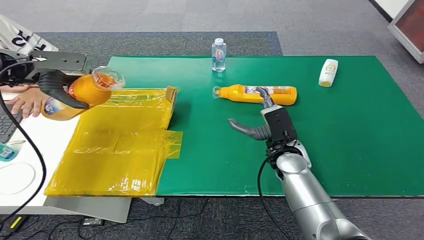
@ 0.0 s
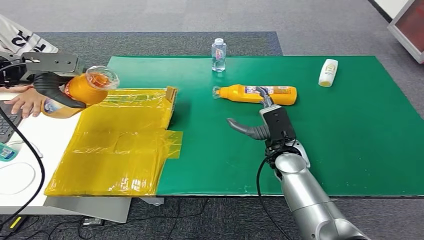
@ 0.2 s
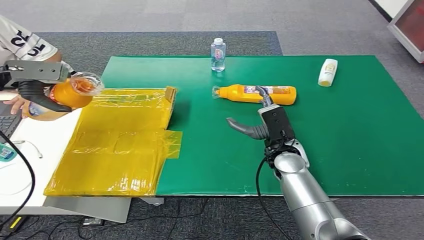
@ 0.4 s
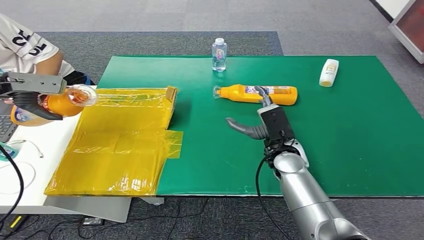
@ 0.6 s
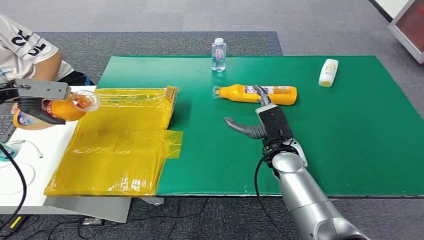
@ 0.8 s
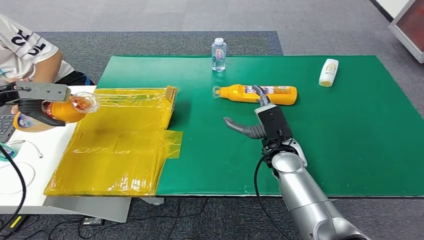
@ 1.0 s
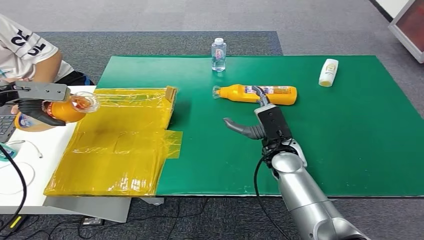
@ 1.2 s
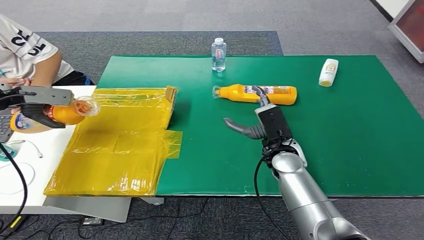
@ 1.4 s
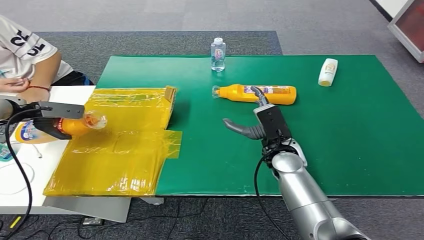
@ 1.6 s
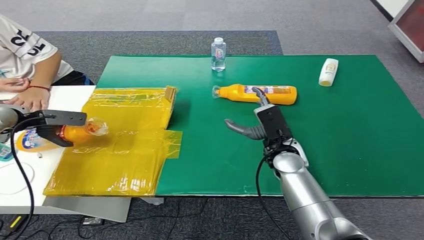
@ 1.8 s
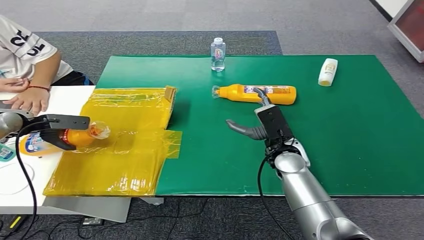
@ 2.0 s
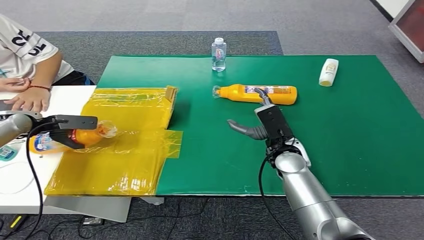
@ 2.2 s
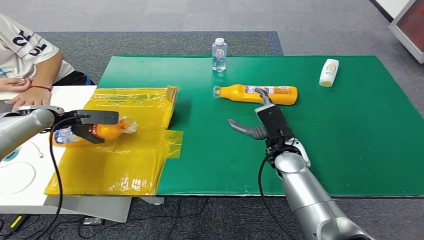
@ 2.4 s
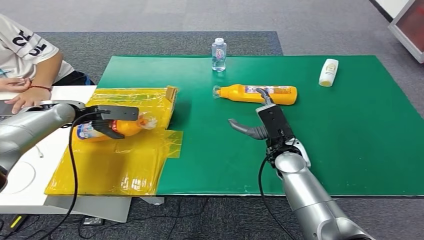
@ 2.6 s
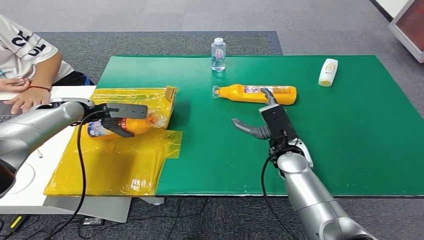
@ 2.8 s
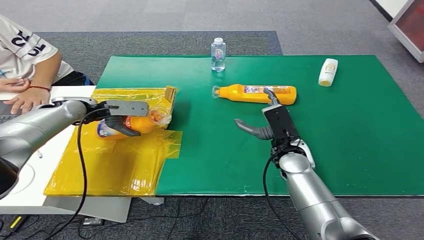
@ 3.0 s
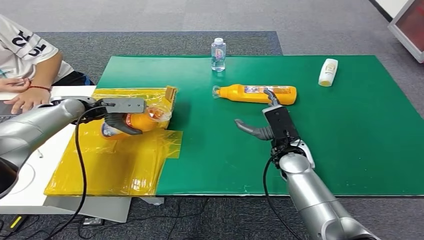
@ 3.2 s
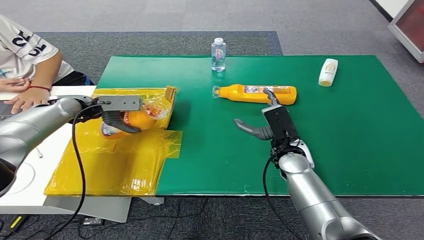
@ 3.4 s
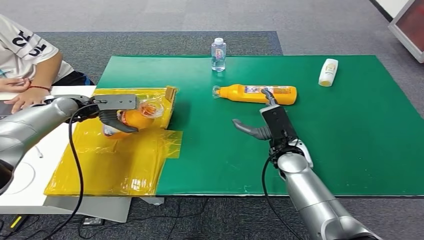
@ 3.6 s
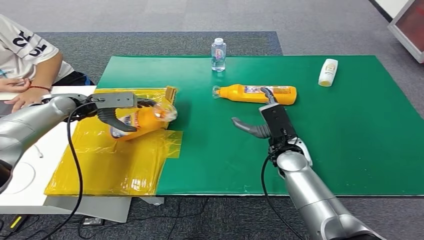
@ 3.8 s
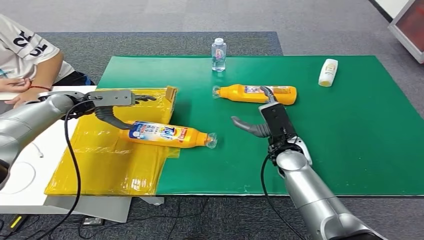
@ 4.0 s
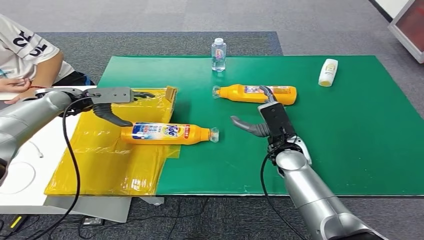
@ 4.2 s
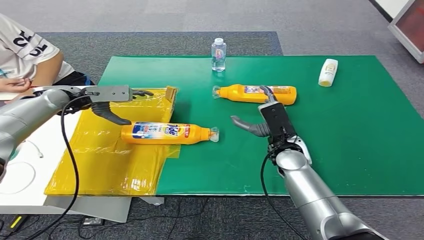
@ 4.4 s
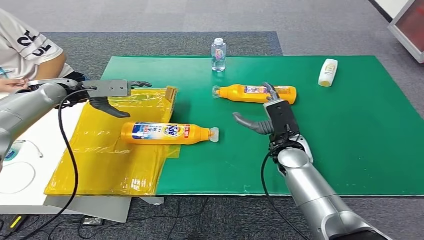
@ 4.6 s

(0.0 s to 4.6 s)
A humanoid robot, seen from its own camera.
Step, 0.0 s - 4.6 s: Turn the bottle to the front side.
0.0 s - 1.6 s: The left hand moves downward and to the left, roughly 15 cm.
1.6 s - 3.0 s: The left hand shifts approximately 15 cm to the right.
3.0 s - 4.6 s: The left hand heads upward, covering roughly 5 cm.

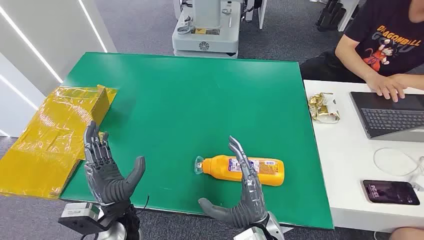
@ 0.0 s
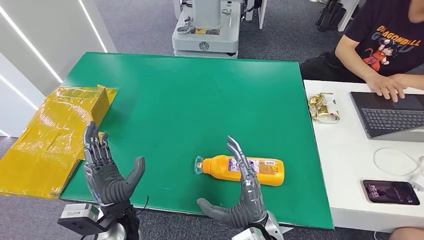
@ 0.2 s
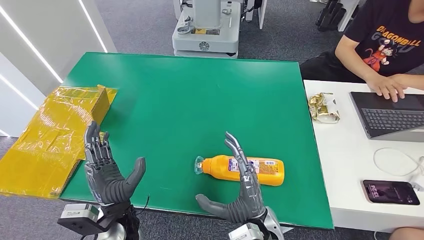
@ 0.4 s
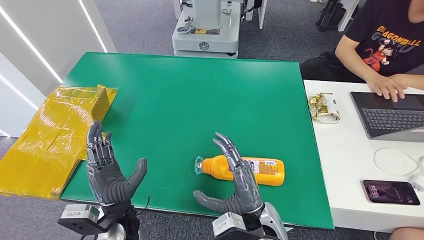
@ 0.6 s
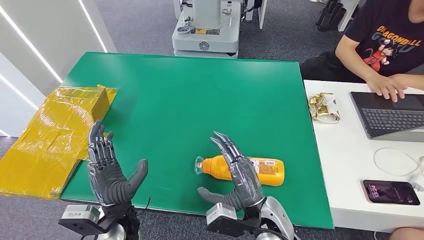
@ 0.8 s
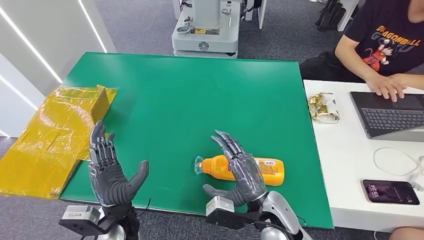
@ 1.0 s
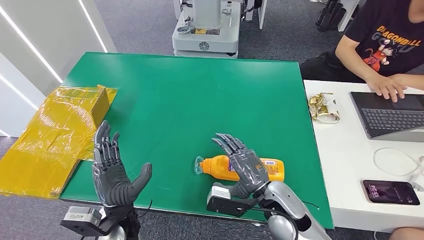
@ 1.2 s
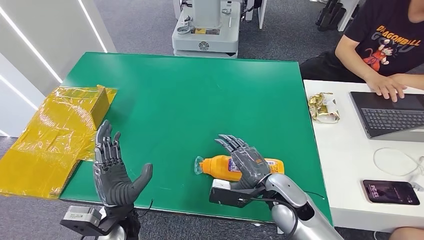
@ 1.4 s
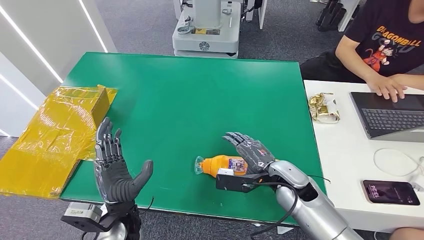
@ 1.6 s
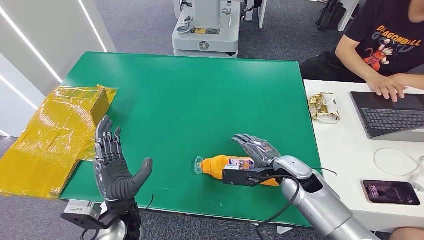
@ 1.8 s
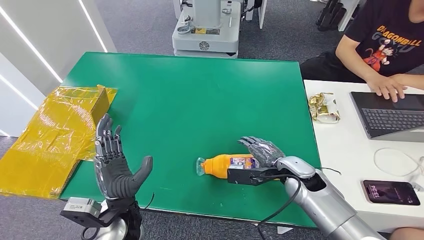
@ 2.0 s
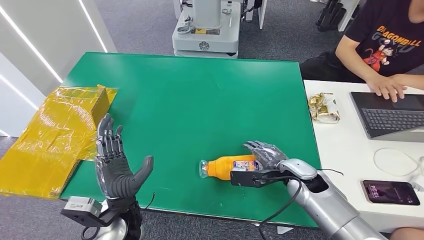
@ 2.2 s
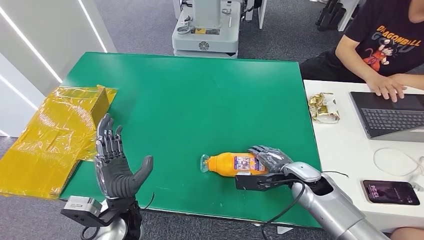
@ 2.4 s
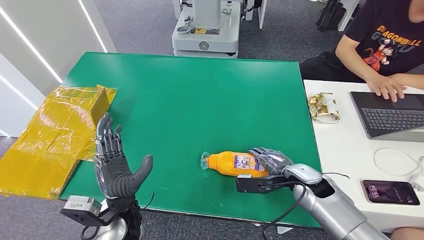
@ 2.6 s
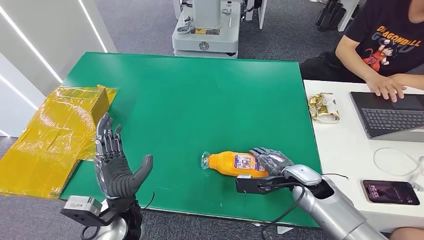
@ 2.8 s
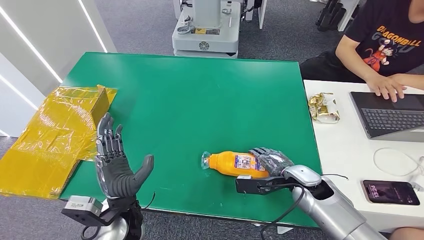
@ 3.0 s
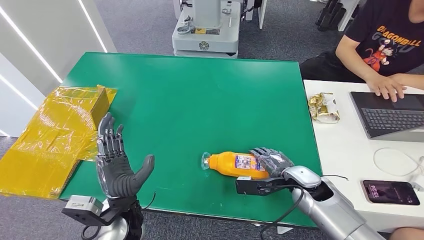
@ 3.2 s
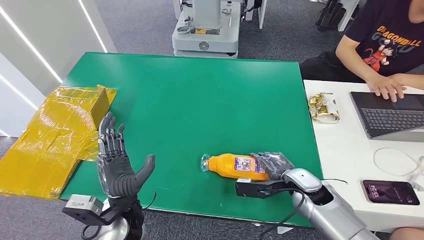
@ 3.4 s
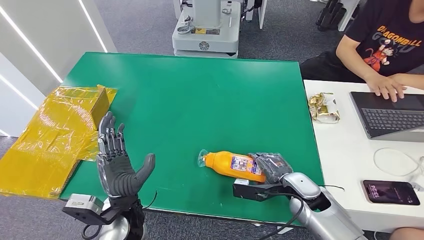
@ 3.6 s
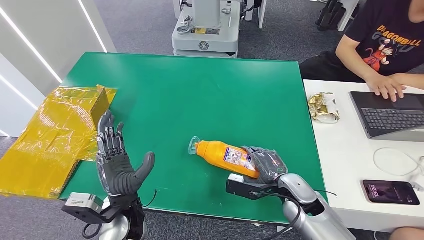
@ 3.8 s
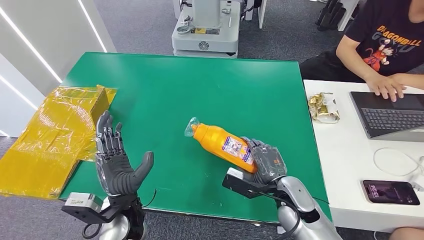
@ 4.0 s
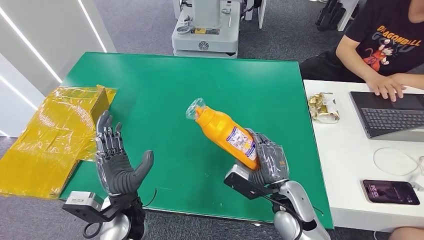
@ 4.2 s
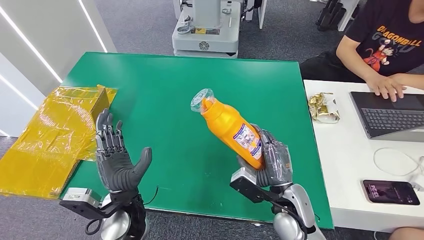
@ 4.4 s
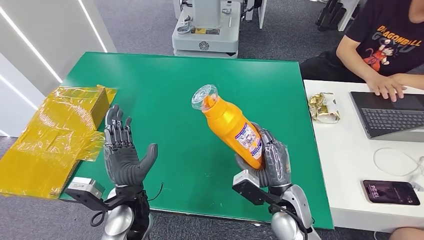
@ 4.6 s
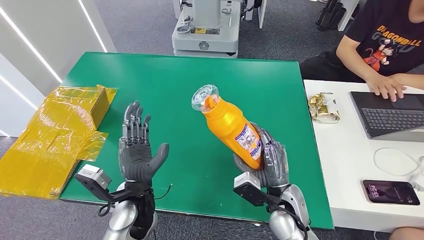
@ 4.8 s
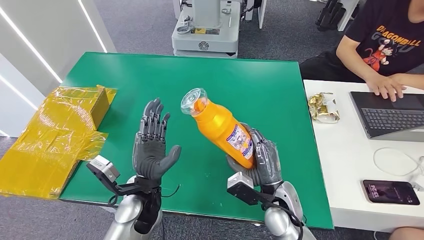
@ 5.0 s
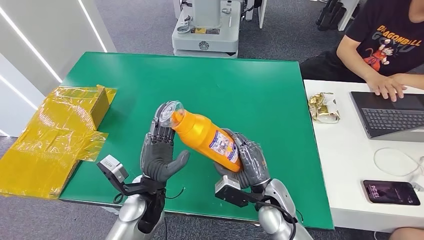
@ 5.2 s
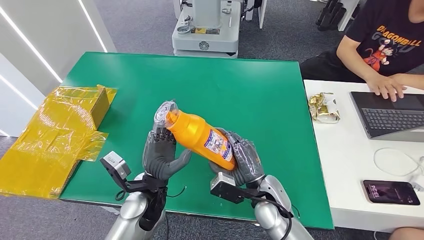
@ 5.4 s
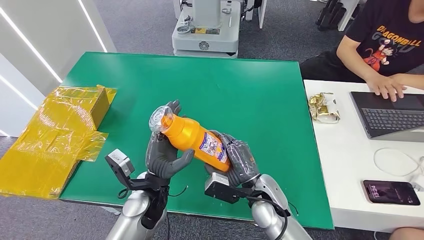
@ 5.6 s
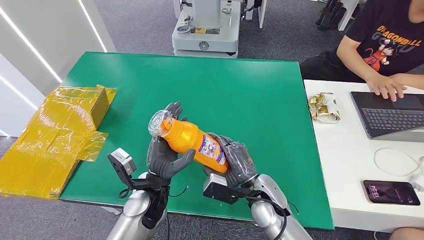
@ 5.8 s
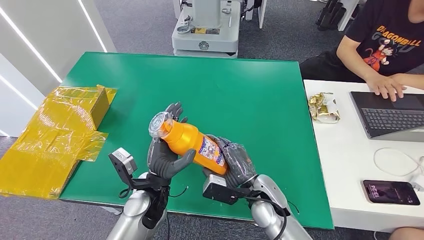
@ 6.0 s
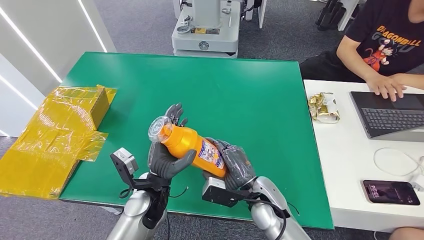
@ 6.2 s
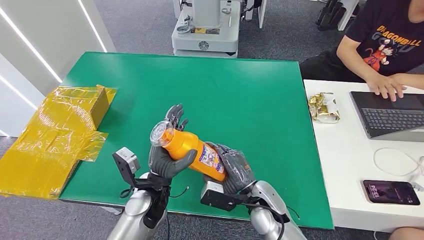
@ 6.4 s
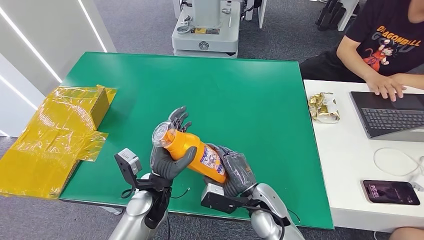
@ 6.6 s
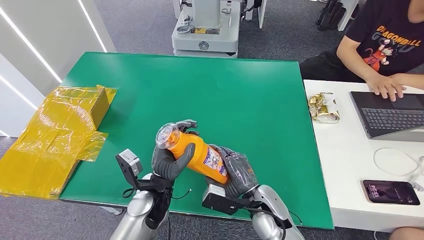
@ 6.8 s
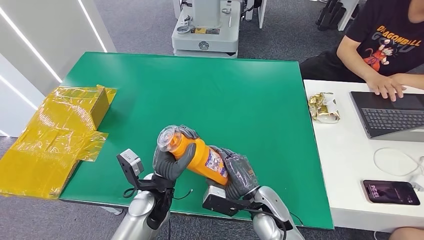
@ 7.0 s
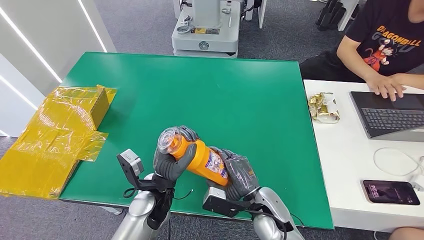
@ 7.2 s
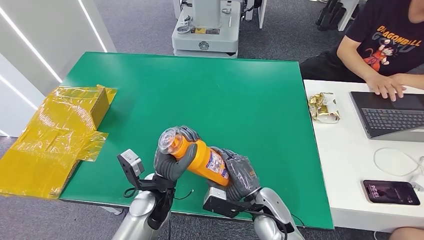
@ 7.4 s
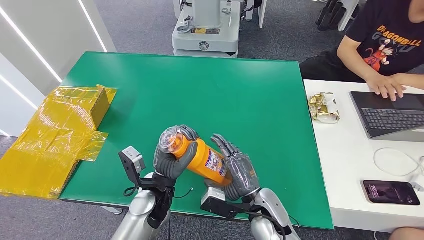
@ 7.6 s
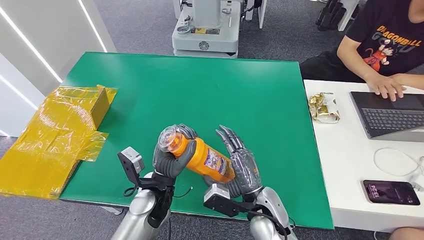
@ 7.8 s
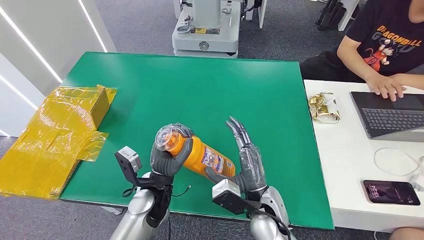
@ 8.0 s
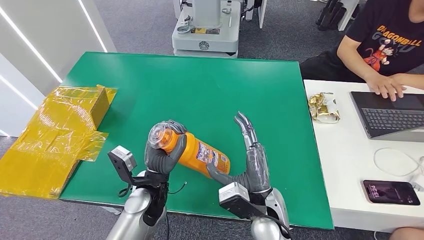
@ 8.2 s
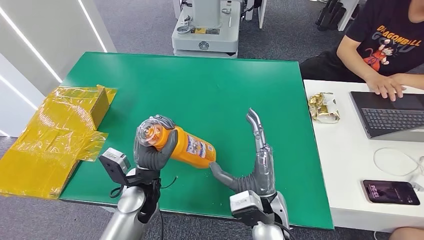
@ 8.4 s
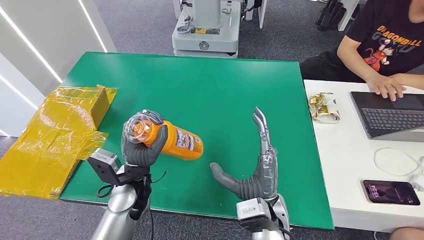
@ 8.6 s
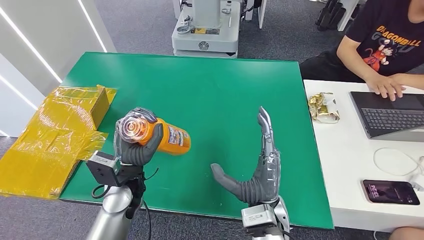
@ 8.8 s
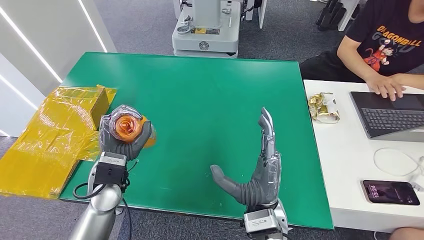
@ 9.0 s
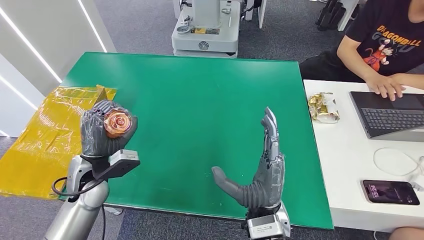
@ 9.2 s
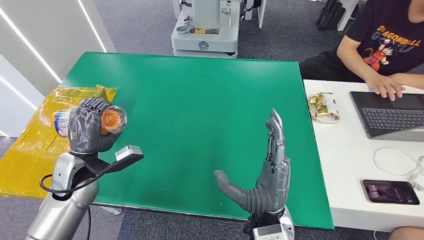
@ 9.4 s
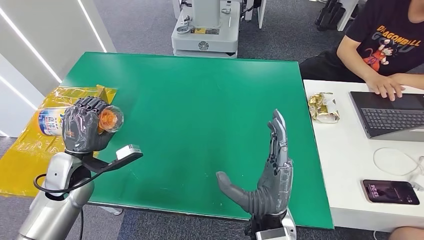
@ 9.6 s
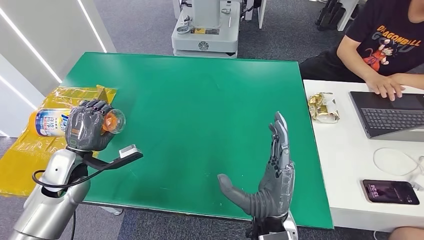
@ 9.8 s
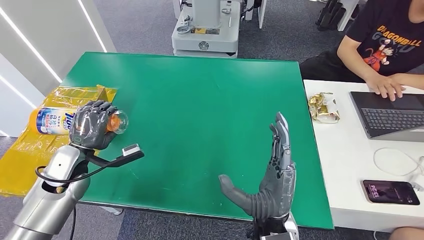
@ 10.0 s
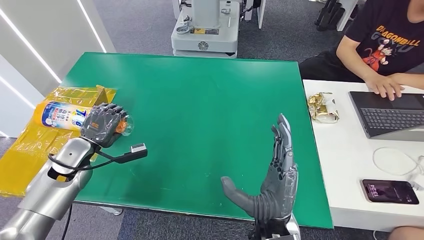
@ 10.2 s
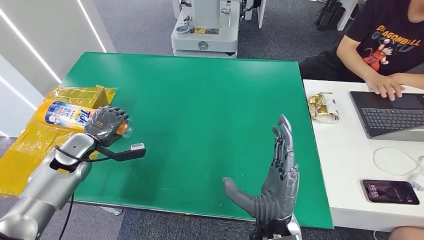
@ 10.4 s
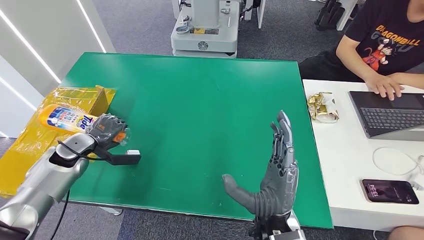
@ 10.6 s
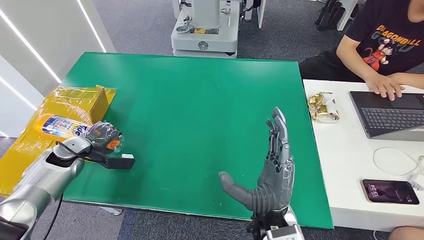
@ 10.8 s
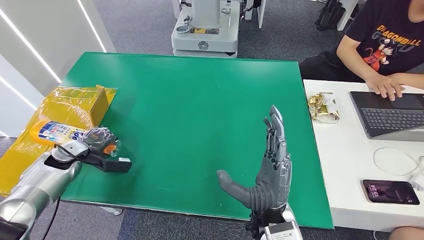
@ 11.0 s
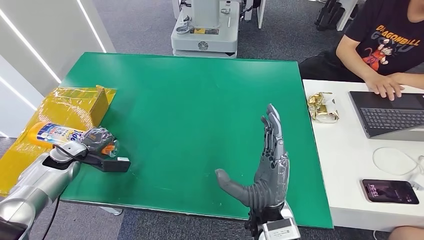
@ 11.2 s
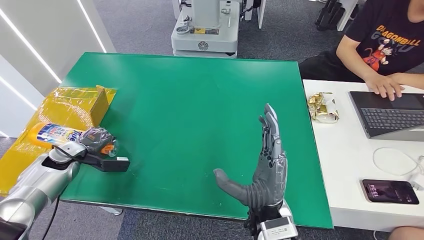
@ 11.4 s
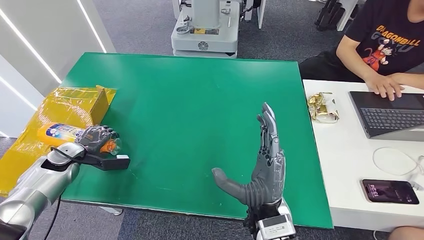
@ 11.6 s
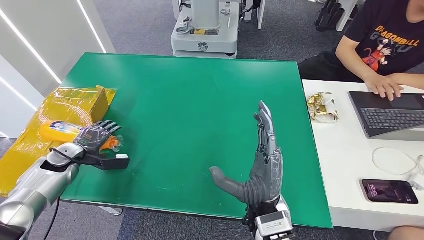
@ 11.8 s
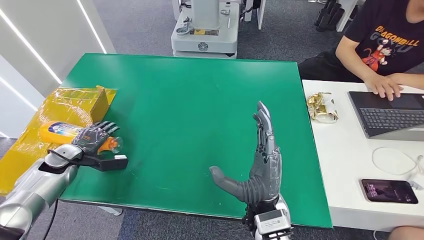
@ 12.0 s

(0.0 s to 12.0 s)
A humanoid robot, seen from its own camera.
Step, 0.0 s - 4.4 s: Pick up the bottle from the table.
1.6 s - 3.0 s: The right hand heads to the right, covering approximately 5 cm.
3.0 s - 4.4 s: The right hand travels backward and to the left by some 10 cm.
4.4 s - 6.0 s: The right hand goes approximately 5 cm to the left. The left hand ends up some 5 cm from where it was.
6.0 s - 7.6 s: The hands make only small movements.
7.6 s - 9.0 s: The left hand shifts about 10 cm to the left, while the right hand is displaced upward by some 5 cm.
9.0 s - 10.4 s: The left hand shifts approximately 15 cm to the left and forward.
10.4 s - 12.0 s: The left hand heads to the left and downward, covering roughly 10 cm.
